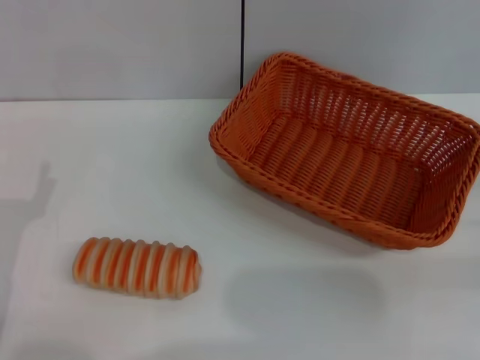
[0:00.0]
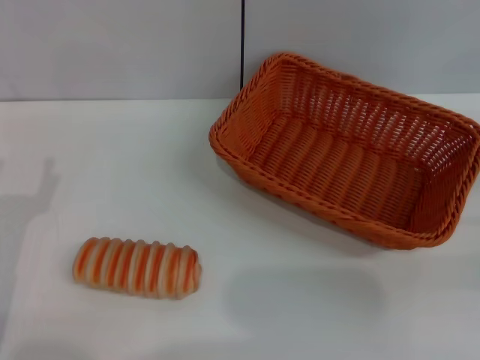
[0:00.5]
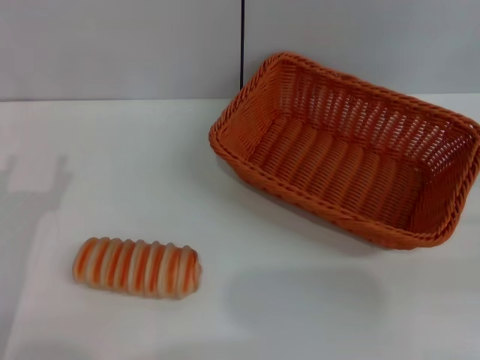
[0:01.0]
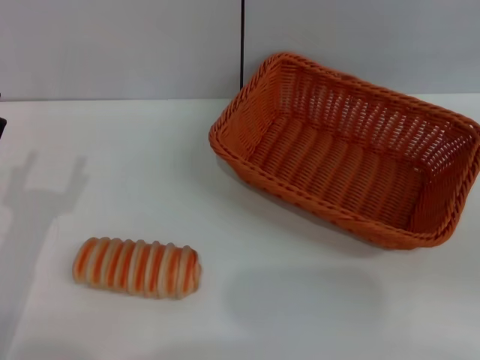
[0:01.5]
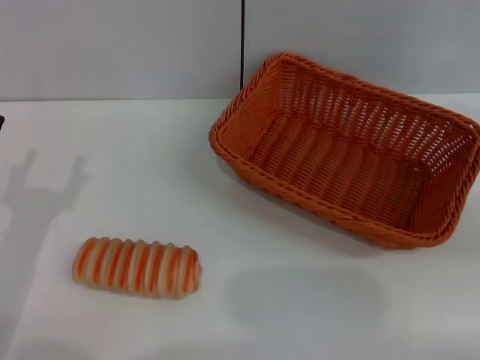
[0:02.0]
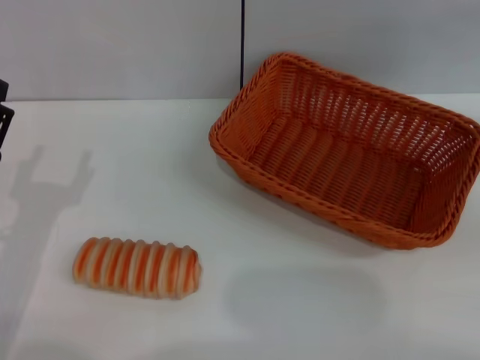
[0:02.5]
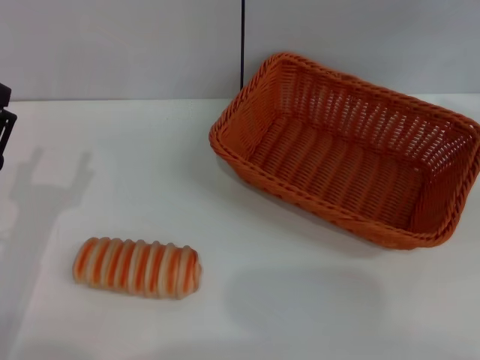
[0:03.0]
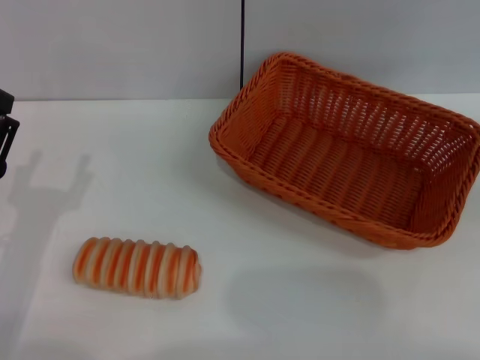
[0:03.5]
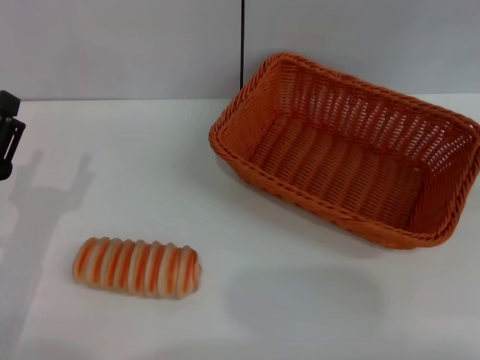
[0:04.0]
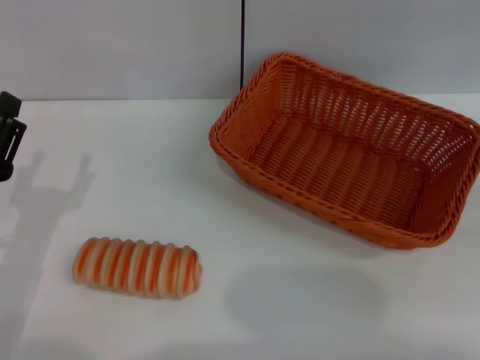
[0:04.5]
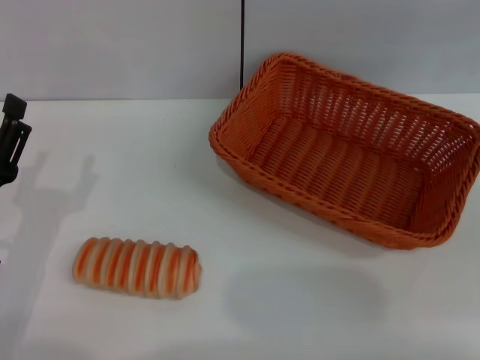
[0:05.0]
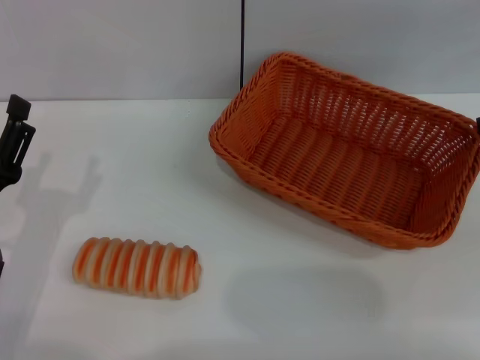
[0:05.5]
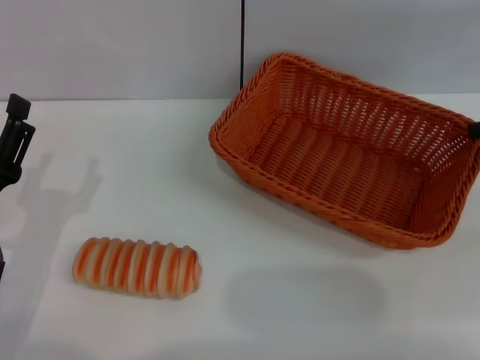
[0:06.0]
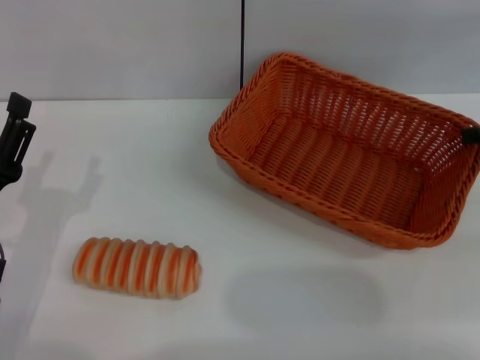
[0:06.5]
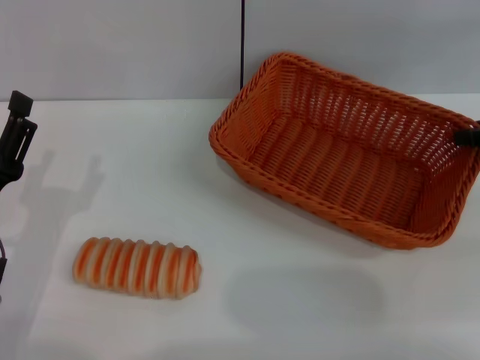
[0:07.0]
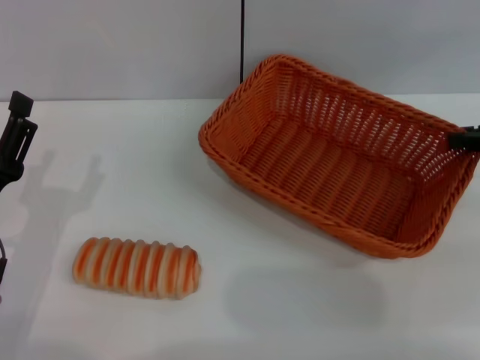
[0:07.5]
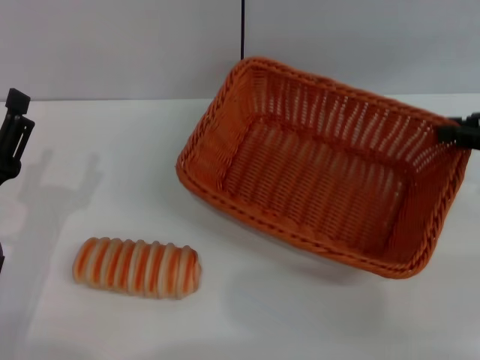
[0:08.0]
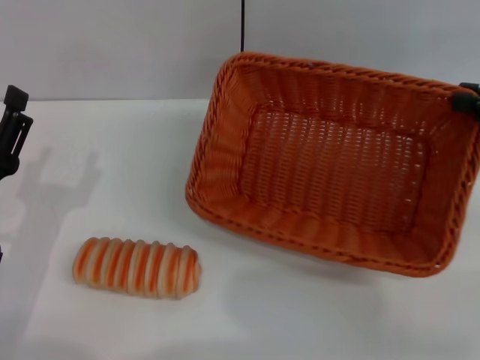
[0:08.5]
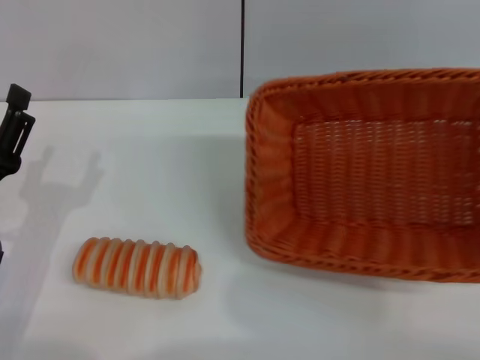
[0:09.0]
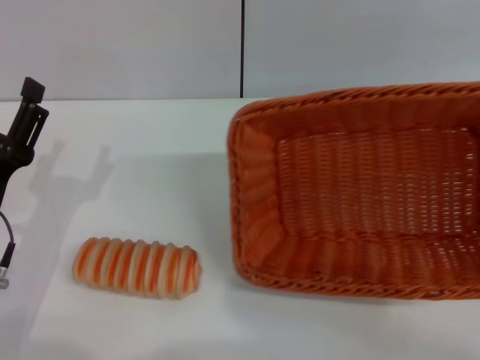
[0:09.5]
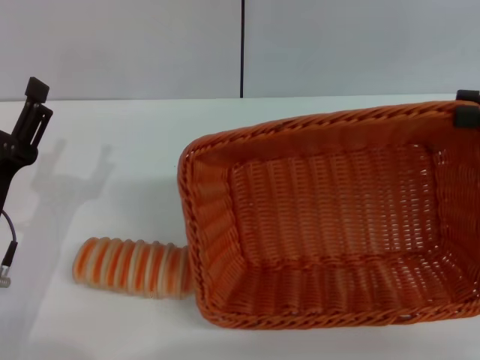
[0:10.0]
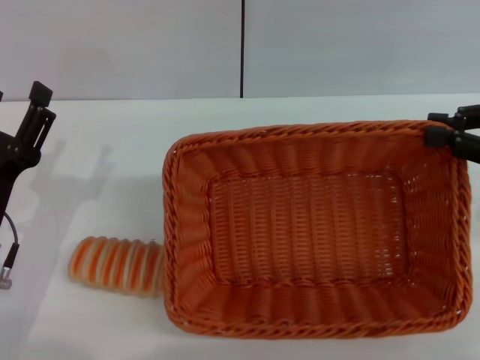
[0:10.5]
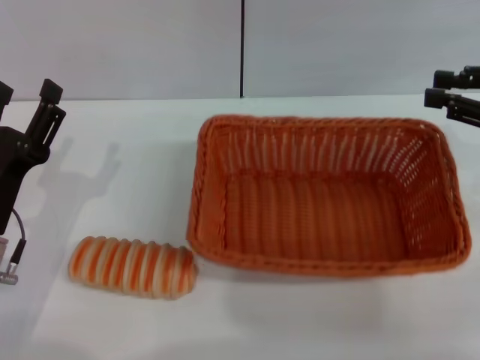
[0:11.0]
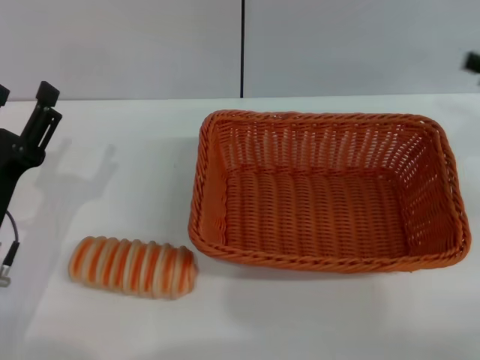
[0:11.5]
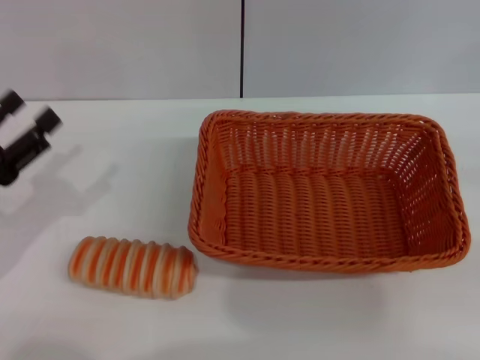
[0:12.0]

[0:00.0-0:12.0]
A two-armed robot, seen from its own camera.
Step, 0:00.0 to 0:09.0: Pick up the light basket with the right gripper.
Step, 0:09.5 to 0:11.0: Place the light basket in the center of view with the right gripper.
0:06.0 to 0:08.0: The right gripper closes its fingers.
0:10.0 to 0:12.0: The right gripper moves downward, to the right and backward, approximately 15 cm, and opens; the left gripper moves to the left, about 5 cm.

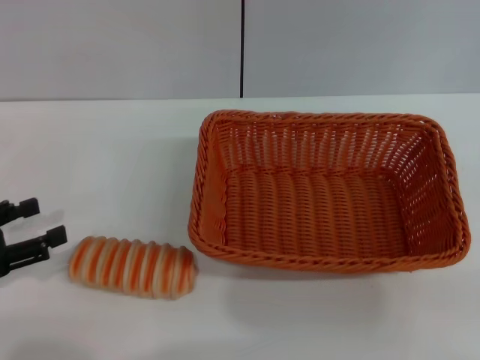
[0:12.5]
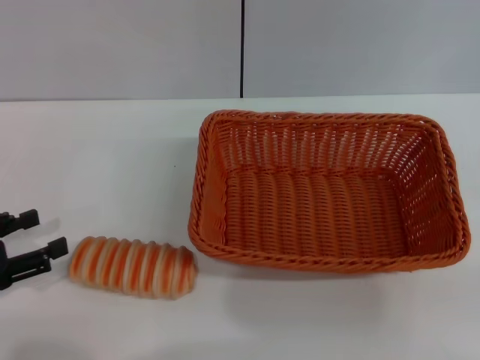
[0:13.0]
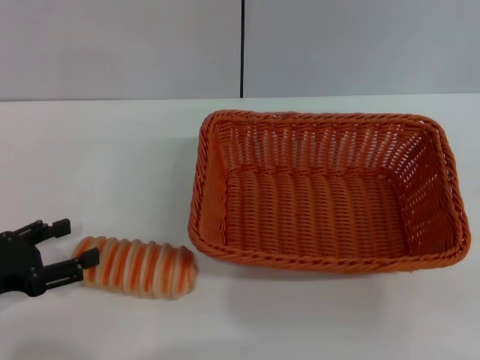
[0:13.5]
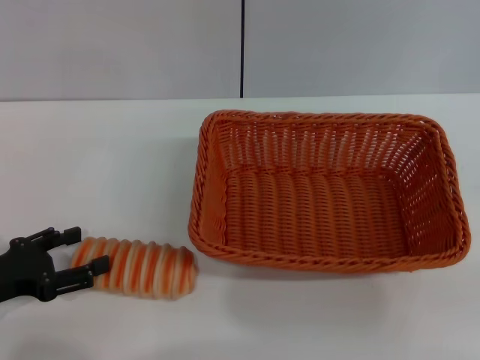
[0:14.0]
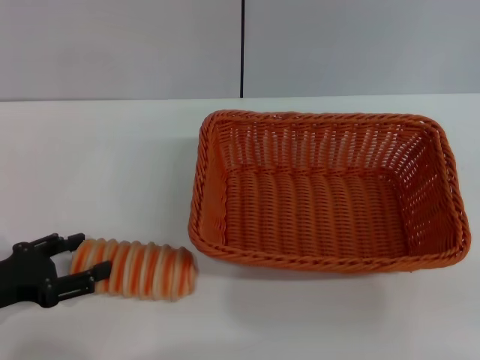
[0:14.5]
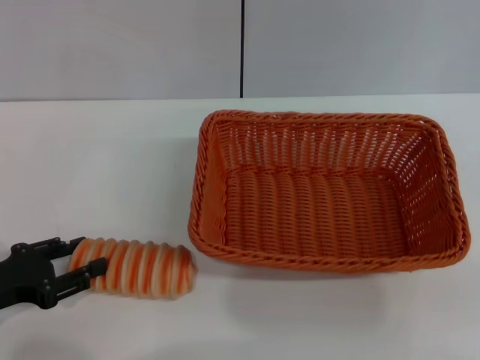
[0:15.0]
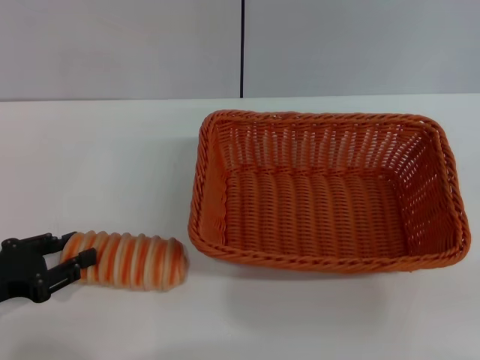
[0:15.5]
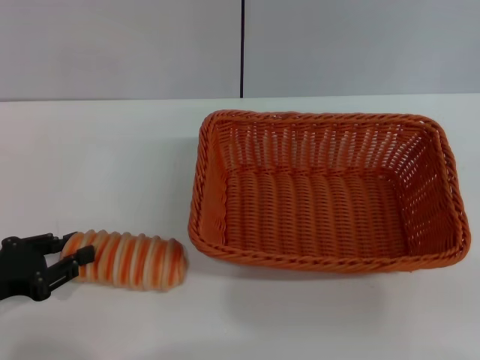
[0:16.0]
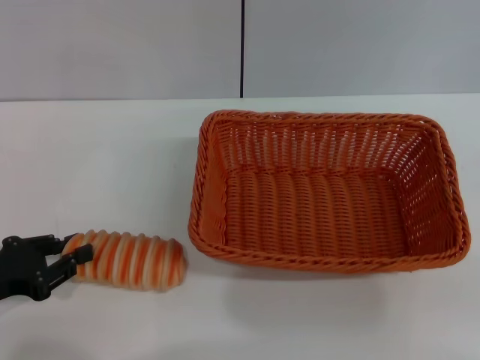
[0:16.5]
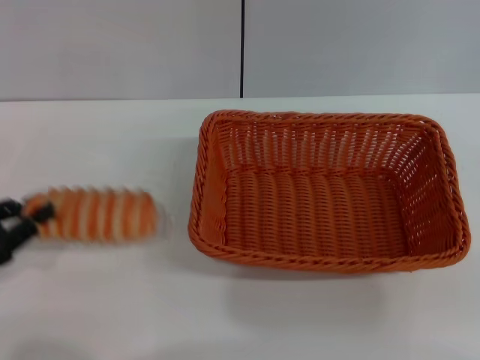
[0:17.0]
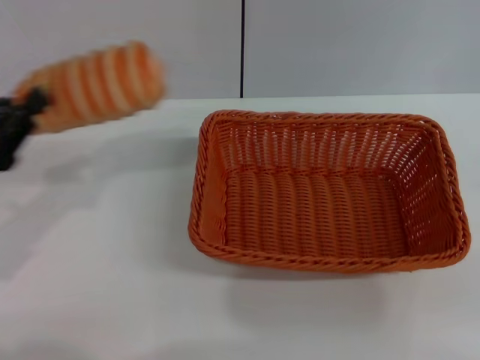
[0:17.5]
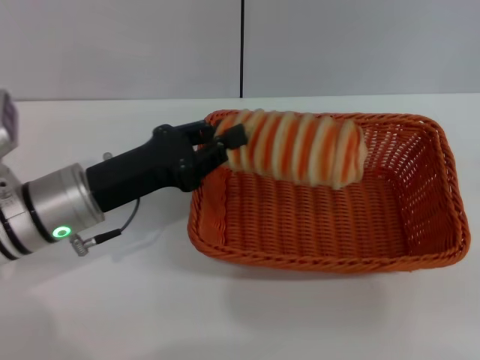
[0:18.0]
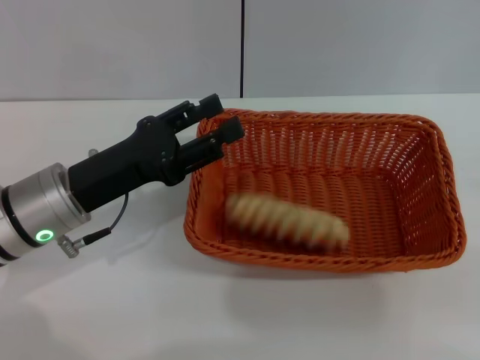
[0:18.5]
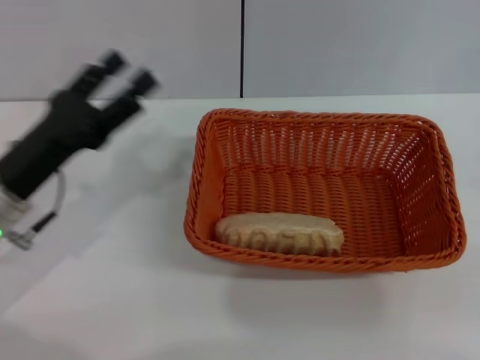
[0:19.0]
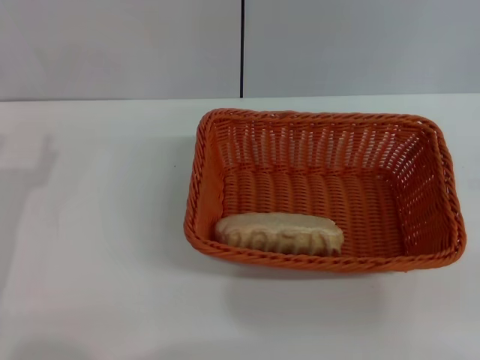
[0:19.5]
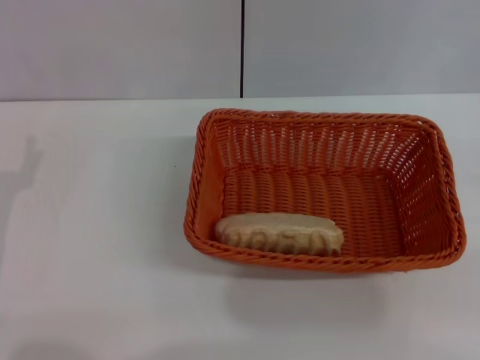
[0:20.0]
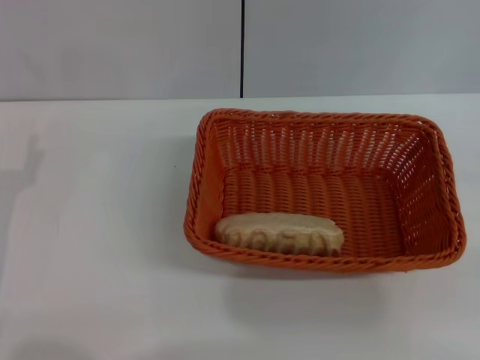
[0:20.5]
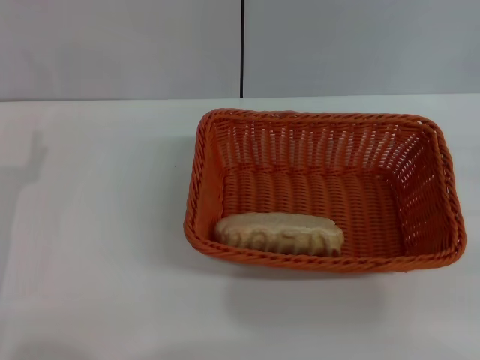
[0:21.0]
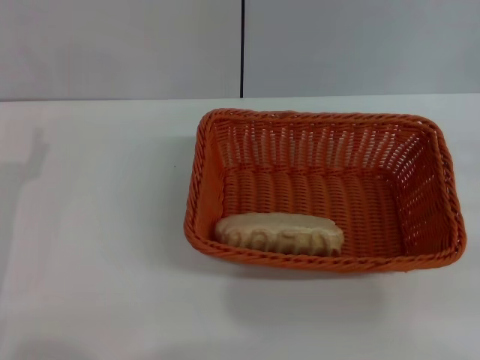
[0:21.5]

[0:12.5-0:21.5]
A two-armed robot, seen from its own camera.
Step, 0:12.5 to 0:17.0: Pick up the long bread with the left gripper.
Step, 0:17.5 to 0:18.5: Place the long bread into the light basket with the left gripper.
0:12.5 to 0:14.5: The grippers move only a little.
0:14.5 to 0:17.0: The left gripper closes.
0:17.0 to 0:19.5: The left gripper is displaced to the right by about 5 cm, and opens up.

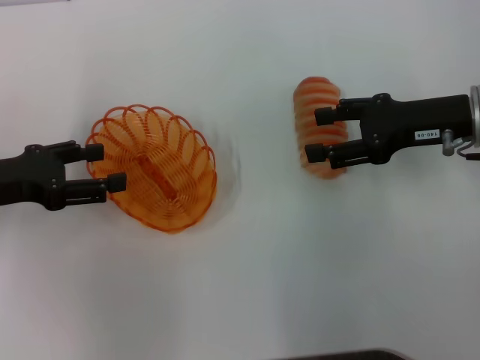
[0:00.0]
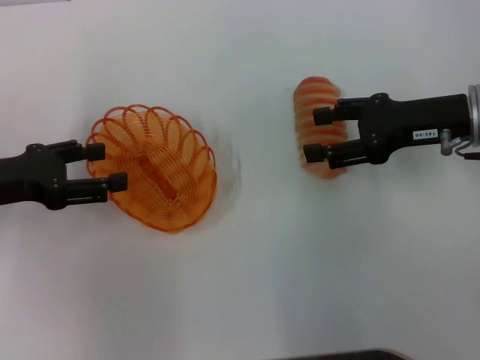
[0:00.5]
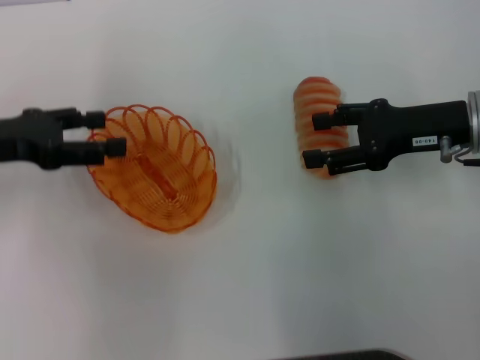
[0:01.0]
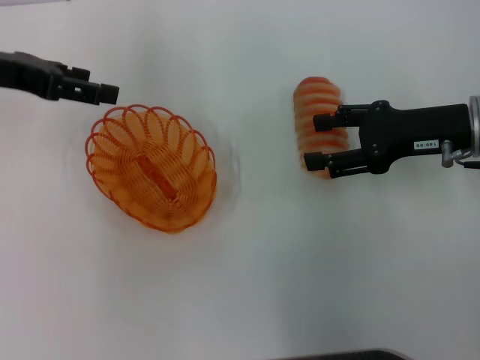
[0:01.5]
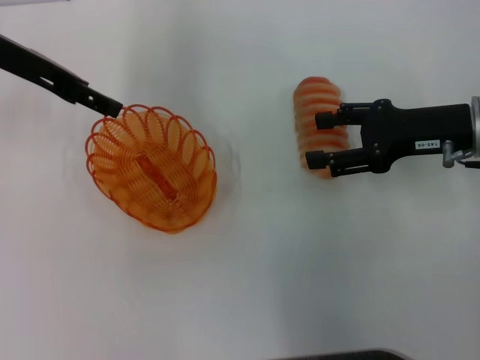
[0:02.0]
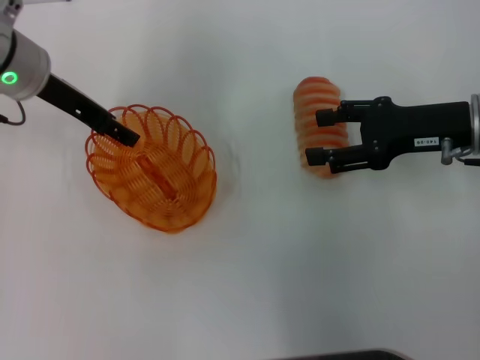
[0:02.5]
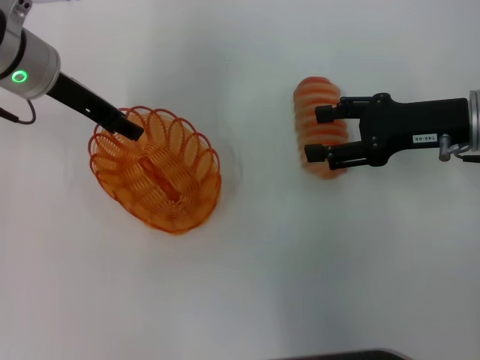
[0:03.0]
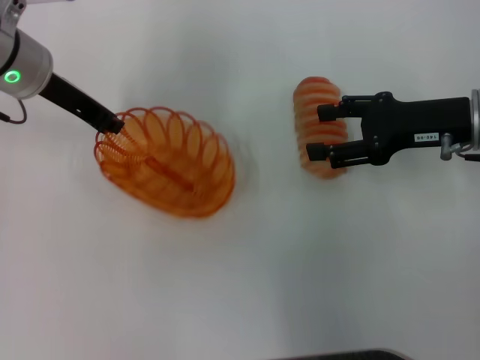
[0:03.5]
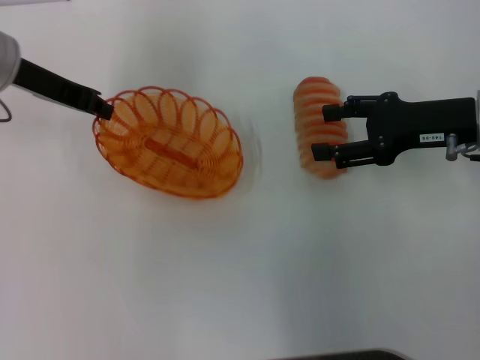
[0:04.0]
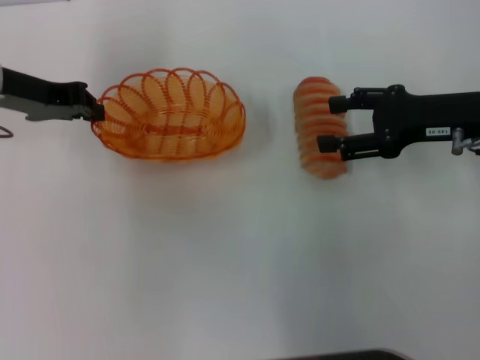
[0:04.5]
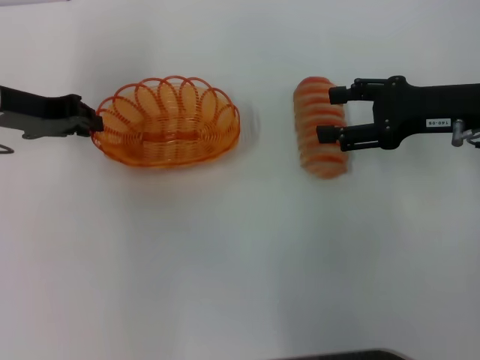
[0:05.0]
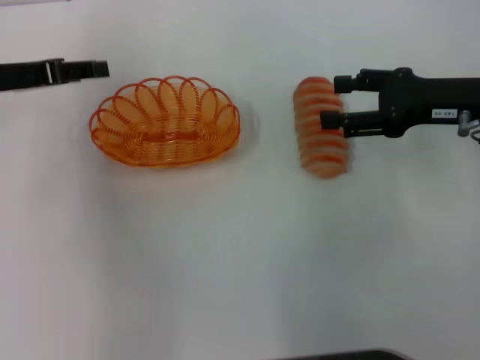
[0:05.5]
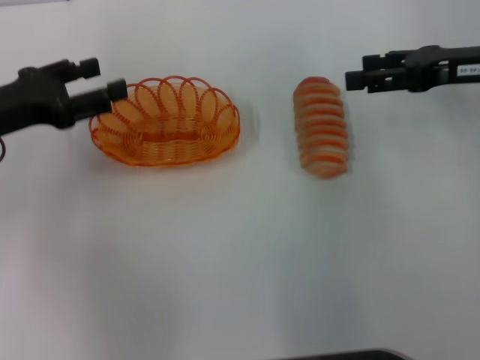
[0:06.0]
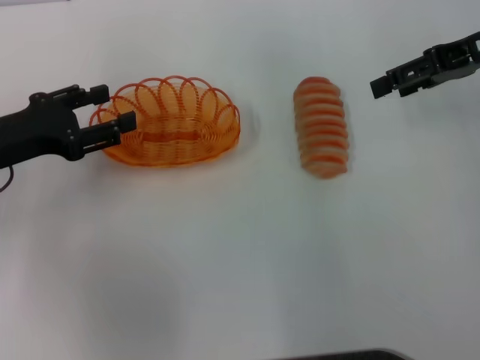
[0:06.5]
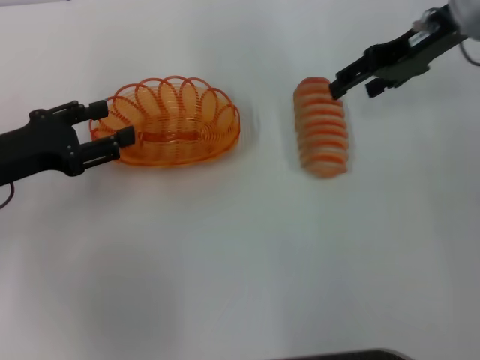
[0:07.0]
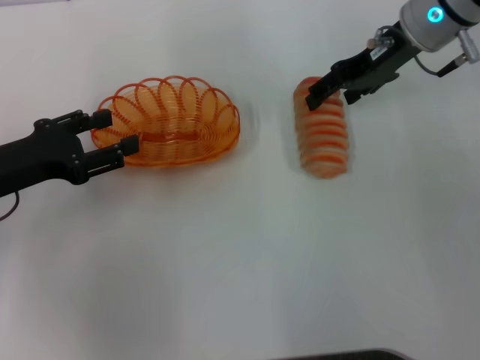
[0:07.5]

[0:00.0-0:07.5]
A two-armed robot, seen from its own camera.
Step, 0:00.0 to 0:04.0: Pick up the basket with the left gripper.
Step, 0:04.5 to 0:05.5: Place the basket in the center of view with the left gripper.
0:00.0 to 0:02.0: The left gripper is displaced forward, upward and to the right by some 15 cm.
0:02.0 to 0:04.0: The left gripper closes.
0:04.0 to 0:05.5: The left gripper moves some 5 cm, and opens.
0:05.5 to 0:07.5: The left gripper moves backward and downward, about 10 cm. The right gripper goes approximately 15 cm forward and to the left.
